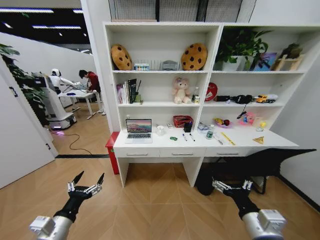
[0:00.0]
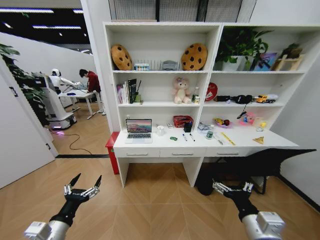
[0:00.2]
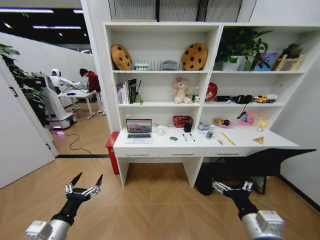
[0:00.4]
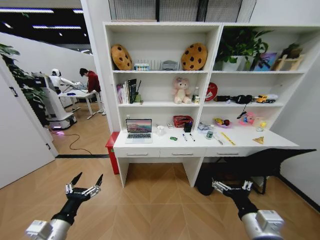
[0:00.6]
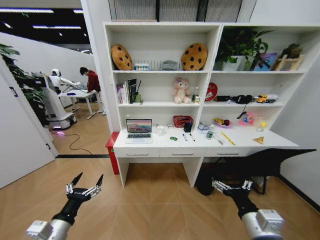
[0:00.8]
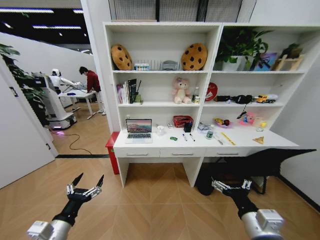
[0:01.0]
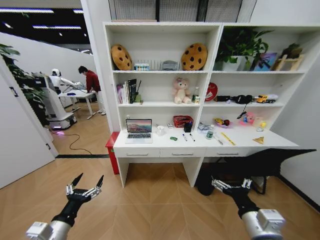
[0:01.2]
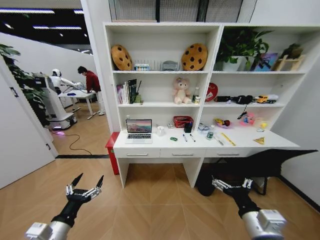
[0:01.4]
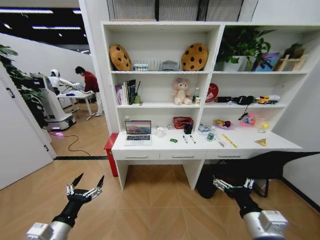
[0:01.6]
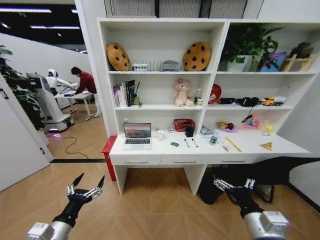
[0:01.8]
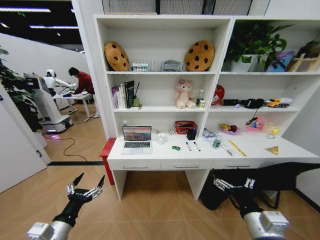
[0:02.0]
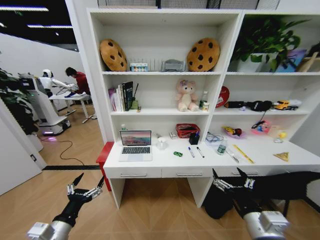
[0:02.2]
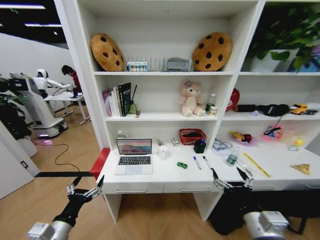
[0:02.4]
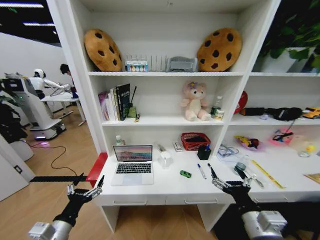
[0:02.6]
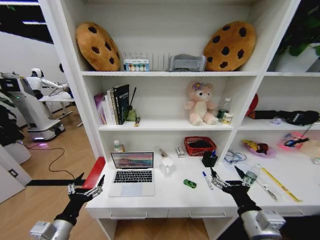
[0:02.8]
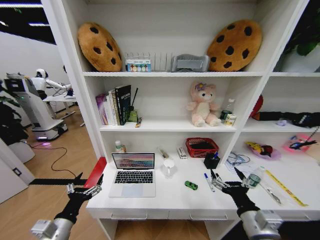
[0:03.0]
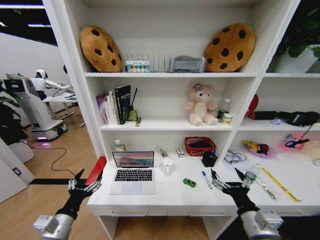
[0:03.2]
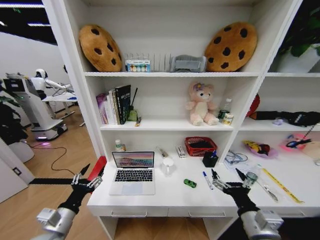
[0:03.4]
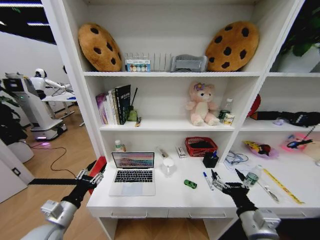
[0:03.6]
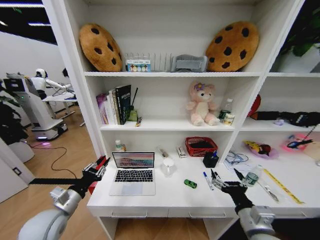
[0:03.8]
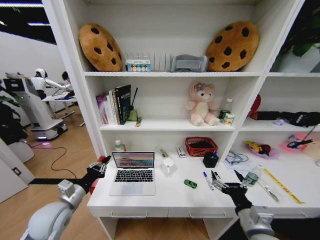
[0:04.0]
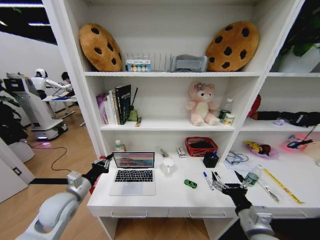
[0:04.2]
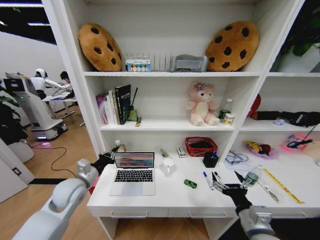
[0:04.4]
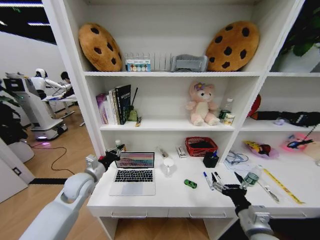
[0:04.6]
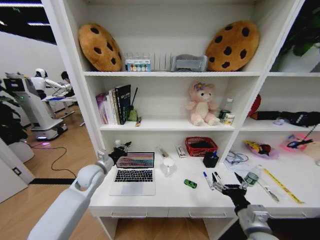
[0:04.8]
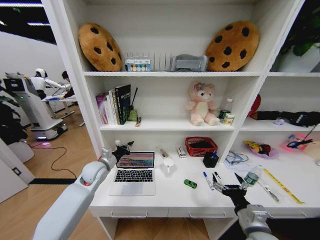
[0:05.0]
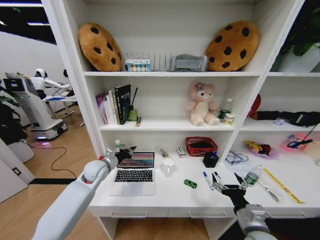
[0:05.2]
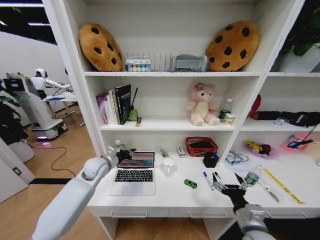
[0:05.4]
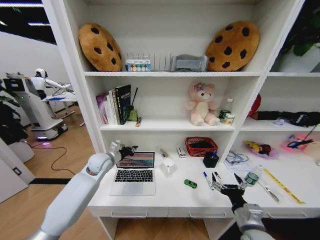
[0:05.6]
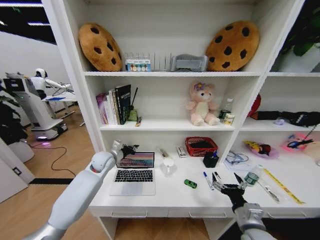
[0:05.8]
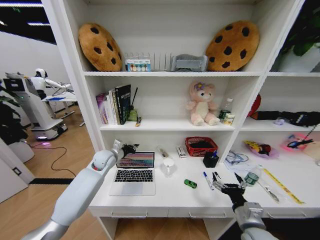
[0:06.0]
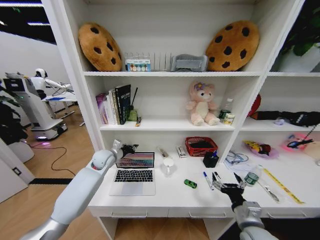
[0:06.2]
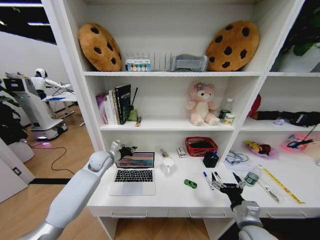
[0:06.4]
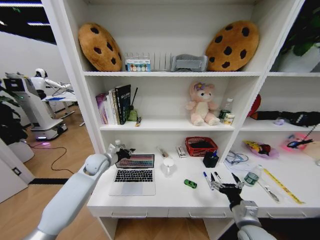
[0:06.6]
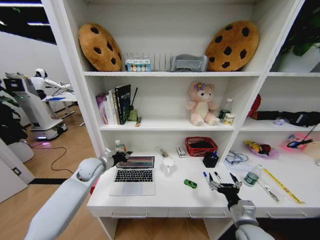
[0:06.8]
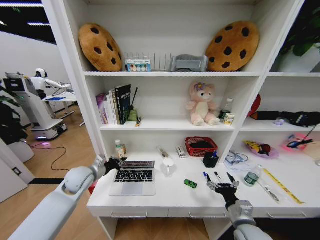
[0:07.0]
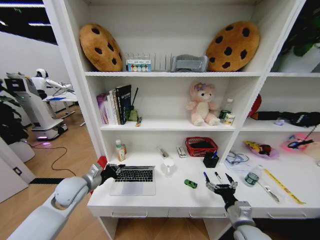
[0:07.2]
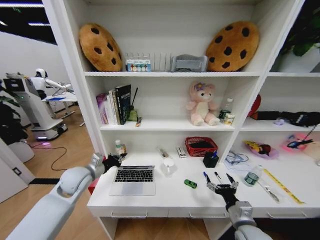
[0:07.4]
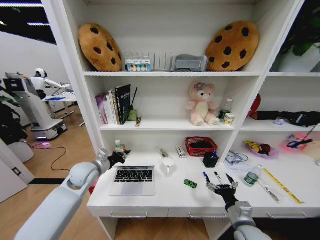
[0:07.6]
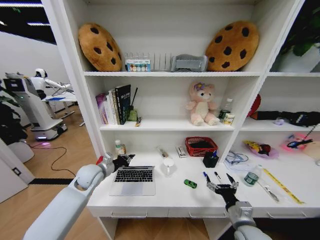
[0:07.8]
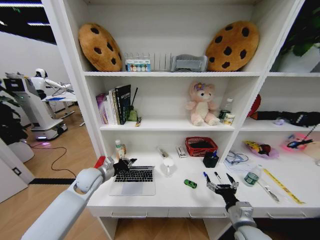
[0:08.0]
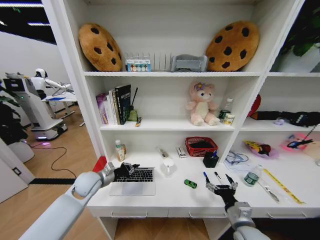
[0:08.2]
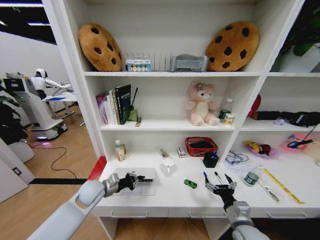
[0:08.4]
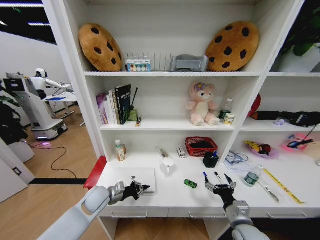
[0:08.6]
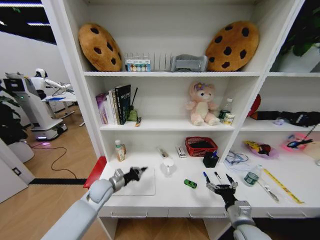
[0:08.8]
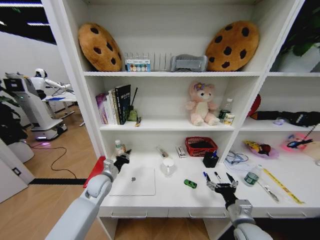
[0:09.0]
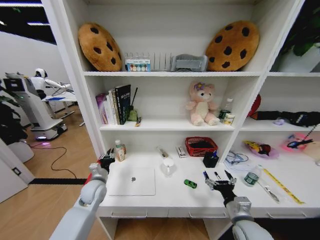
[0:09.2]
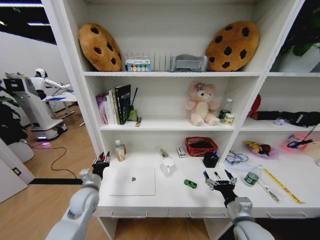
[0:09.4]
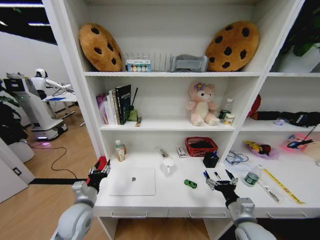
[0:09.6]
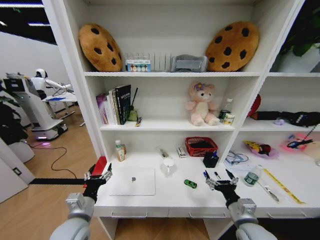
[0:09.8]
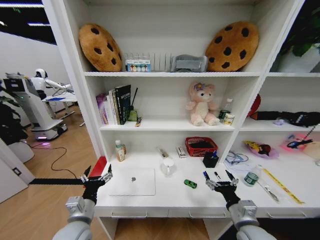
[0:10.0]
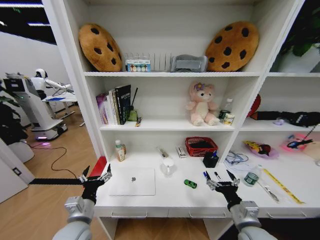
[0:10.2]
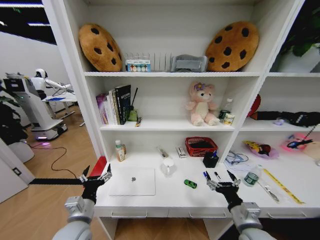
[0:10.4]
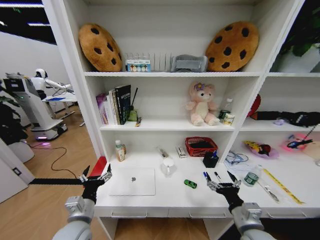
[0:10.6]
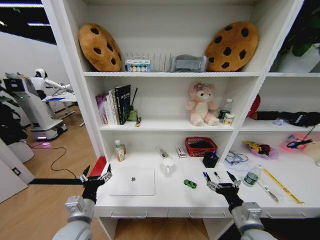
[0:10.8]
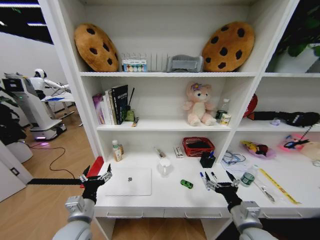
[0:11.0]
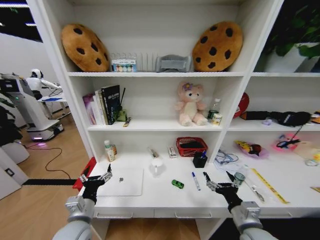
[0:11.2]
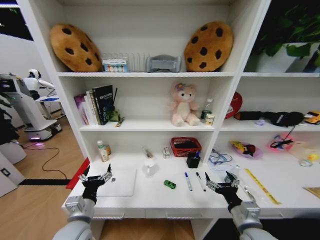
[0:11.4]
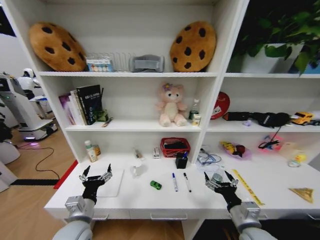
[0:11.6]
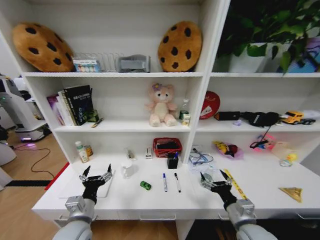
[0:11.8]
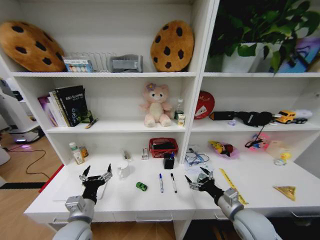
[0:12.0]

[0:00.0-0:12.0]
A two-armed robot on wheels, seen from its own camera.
Task of the whole recording: Organize the objects on the table.
0:03.0 to 0:04.4: The left gripper moves forward, approximately 20 cm, and closes.
0:04.4 to 0:06.0: The left gripper heads forward and to the right, covering roughly 15 cm.
0:06.0 to 0:07.6: The left gripper is displaced backward by roughly 10 cm.
0:07.6 to 0:09.0: The left gripper shifts roughly 10 cm downward.
0:09.0 to 0:10.4: The left gripper travels backward by some 20 cm, and opens.

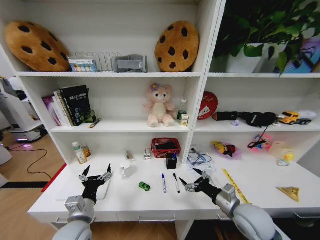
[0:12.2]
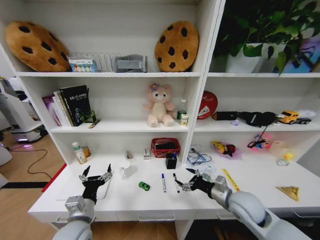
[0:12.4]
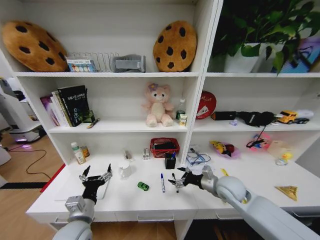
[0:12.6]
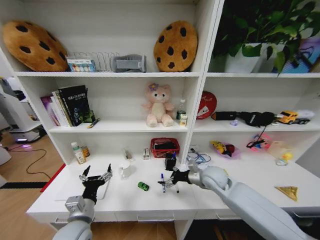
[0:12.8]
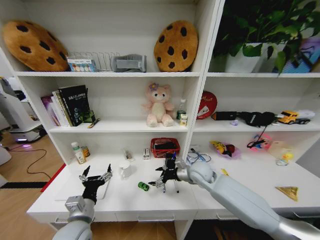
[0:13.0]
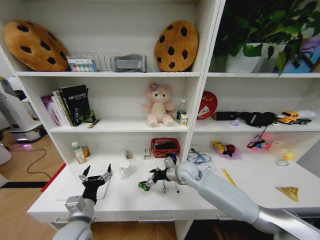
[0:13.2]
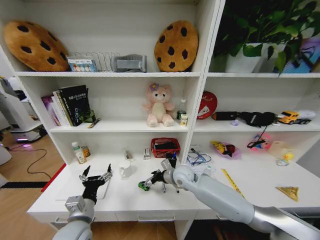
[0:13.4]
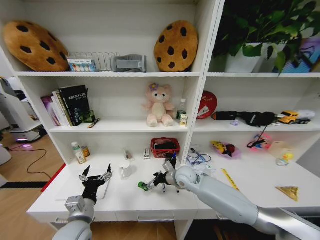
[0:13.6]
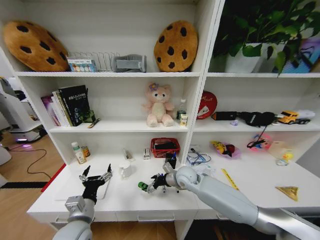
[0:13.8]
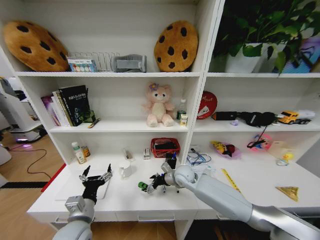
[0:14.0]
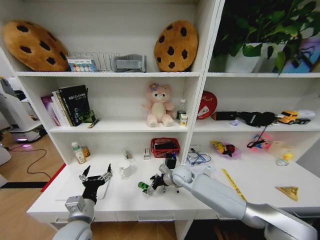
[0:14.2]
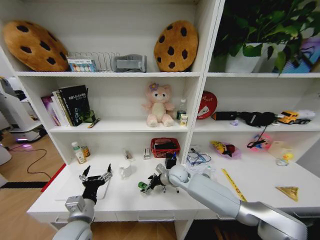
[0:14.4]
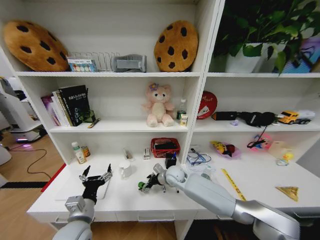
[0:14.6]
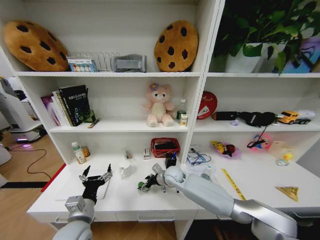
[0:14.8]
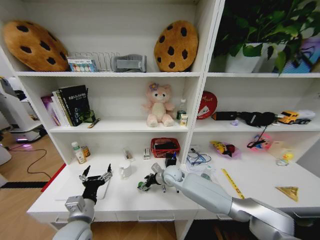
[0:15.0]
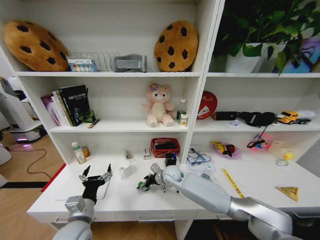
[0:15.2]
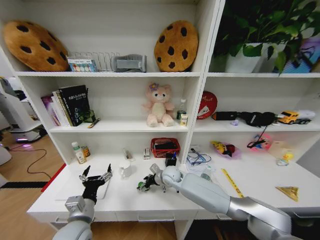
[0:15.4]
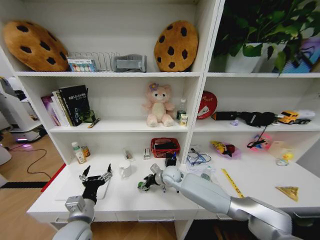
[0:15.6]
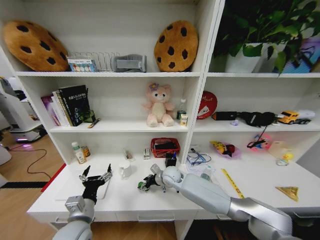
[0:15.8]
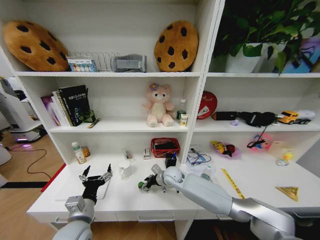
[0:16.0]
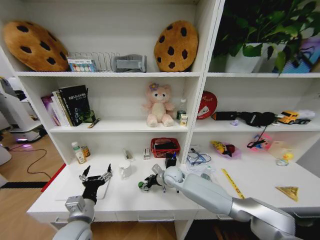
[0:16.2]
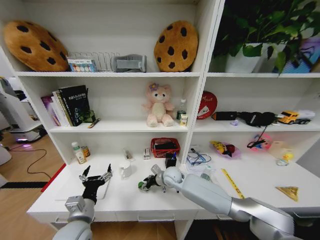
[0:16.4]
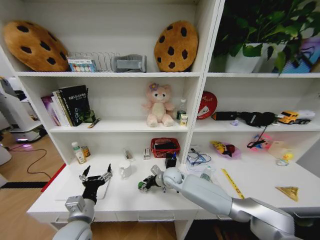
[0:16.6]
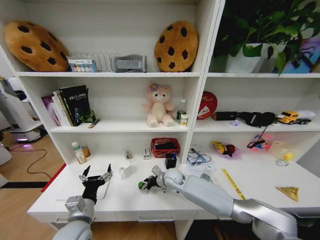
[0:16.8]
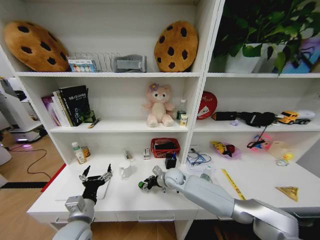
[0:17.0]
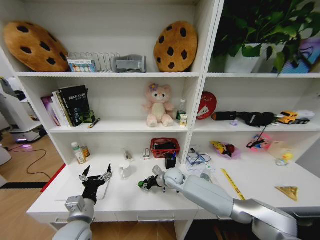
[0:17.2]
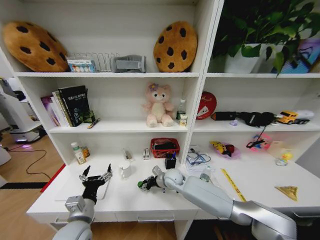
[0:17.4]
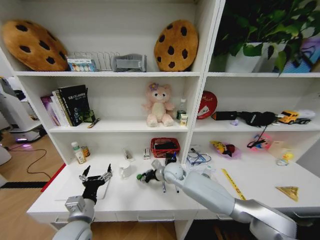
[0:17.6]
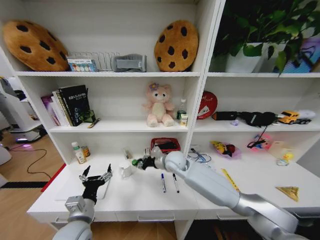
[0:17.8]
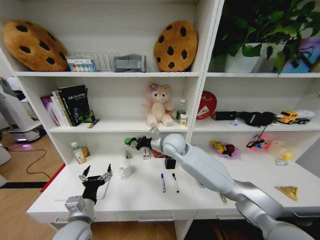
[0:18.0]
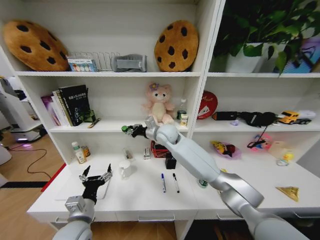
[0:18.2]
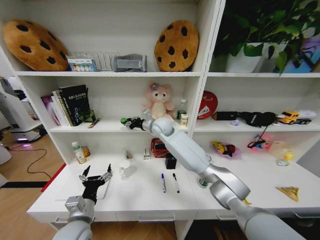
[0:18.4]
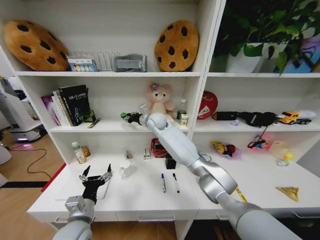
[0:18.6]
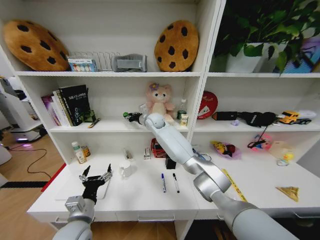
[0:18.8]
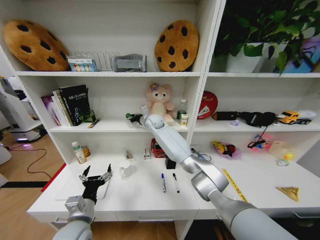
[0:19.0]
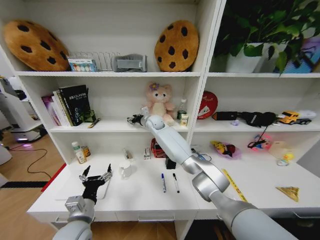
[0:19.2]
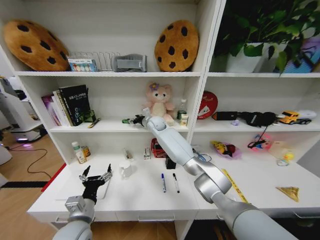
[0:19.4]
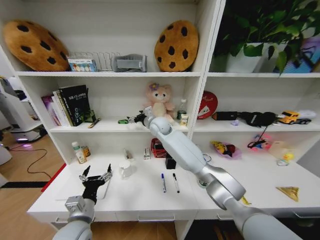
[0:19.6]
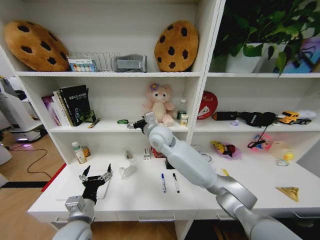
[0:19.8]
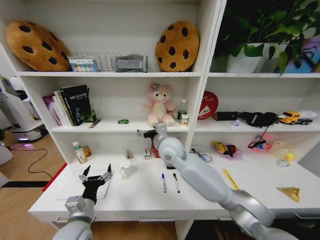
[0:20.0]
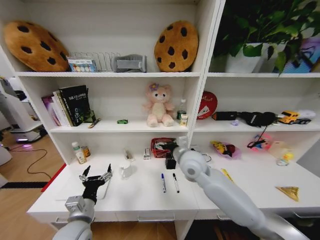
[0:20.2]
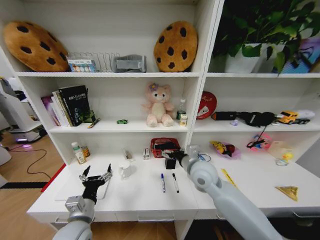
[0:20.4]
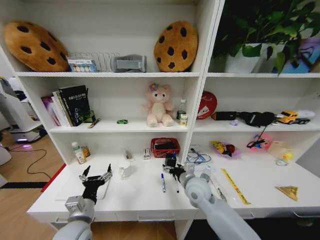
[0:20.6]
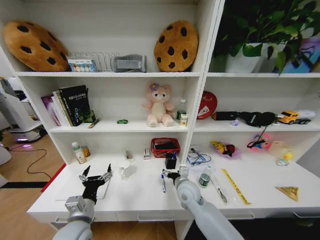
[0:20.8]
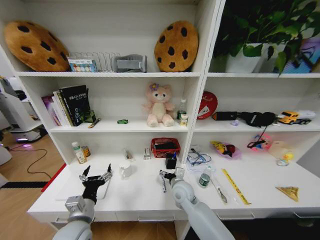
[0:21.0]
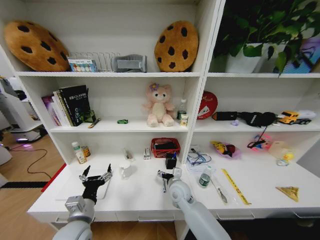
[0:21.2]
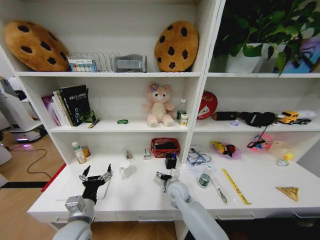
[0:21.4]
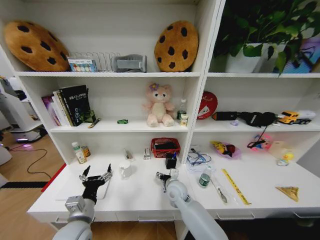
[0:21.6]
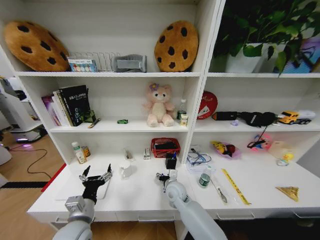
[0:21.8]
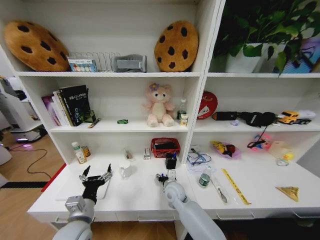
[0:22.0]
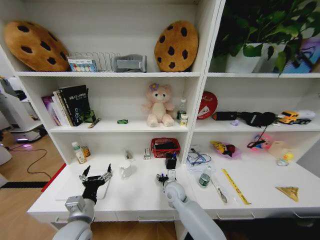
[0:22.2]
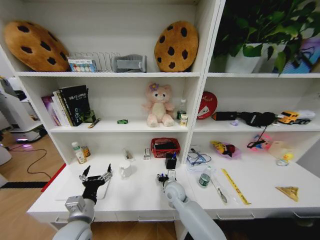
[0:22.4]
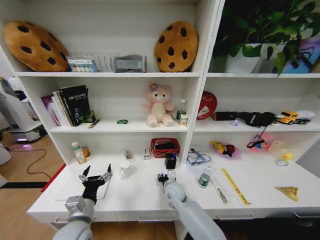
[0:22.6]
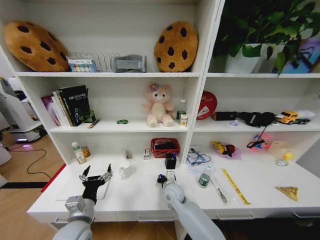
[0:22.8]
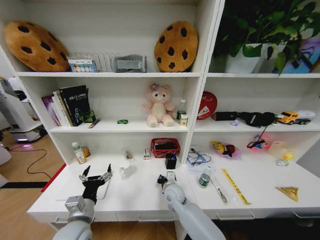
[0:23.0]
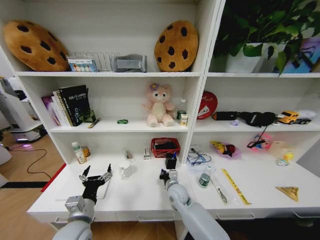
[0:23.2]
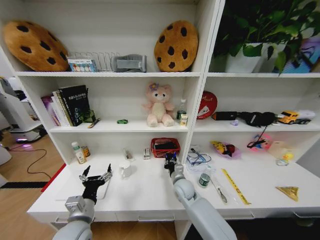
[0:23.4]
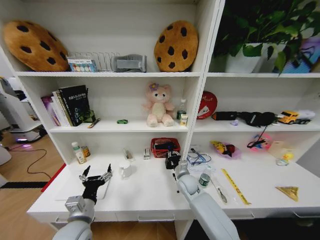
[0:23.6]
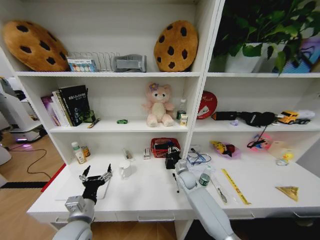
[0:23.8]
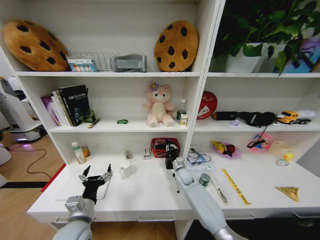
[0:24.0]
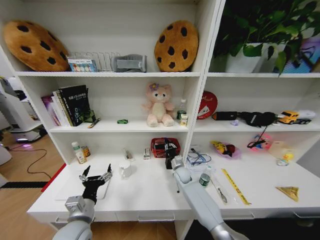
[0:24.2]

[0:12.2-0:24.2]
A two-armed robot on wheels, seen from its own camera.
Task of the whole recording: Organize the objects on the table.
0:12.2 to 0:13.8: The right gripper travels forward and to the left by approximately 25 cm.
0:13.8 to 0:15.2: The right gripper travels to the left by roughly 5 cm.
0:15.2 to 0:16.6: Both grippers stay put.
0:16.6 to 0:18.2: The right gripper is displaced upward by approximately 20 cm.
0:18.2 to 0:19.8: The right gripper goes forward and returns, about 10 cm each way, and opens.
0:19.8 to 0:21.2: The right gripper moves downward and backward, about 25 cm.
0:21.2 to 0:22.6: The right gripper closes its fingers.
0:22.6 to 0:24.2: The right gripper heads forward and to the right, covering approximately 15 cm, and closes its fingers.
